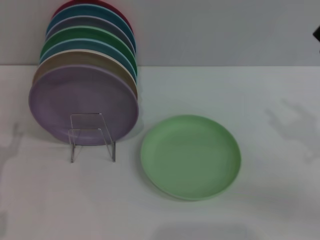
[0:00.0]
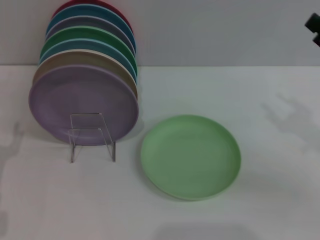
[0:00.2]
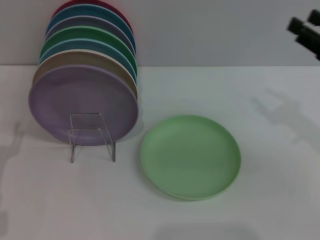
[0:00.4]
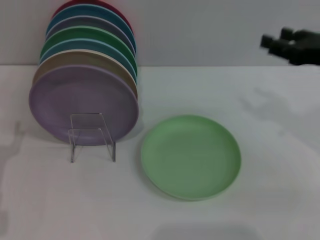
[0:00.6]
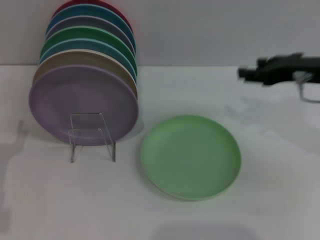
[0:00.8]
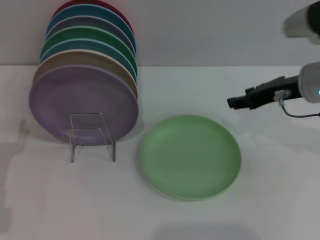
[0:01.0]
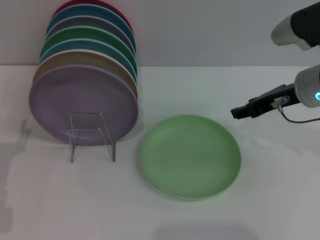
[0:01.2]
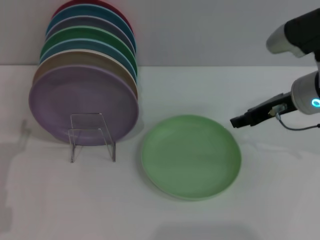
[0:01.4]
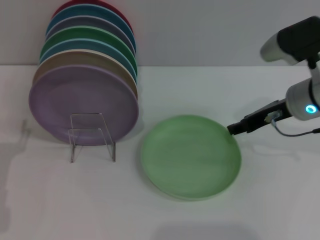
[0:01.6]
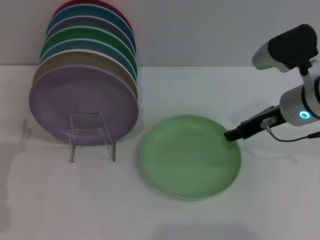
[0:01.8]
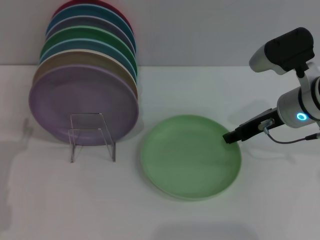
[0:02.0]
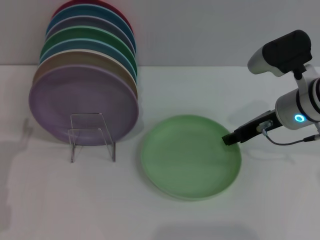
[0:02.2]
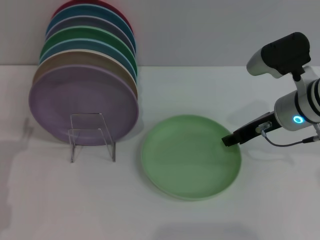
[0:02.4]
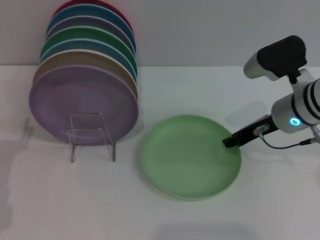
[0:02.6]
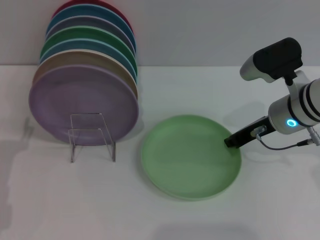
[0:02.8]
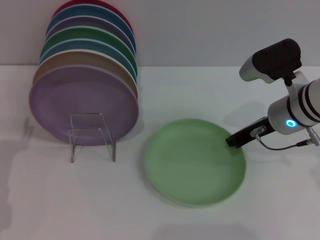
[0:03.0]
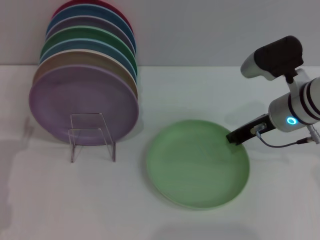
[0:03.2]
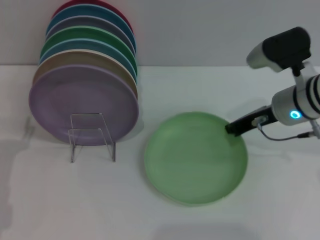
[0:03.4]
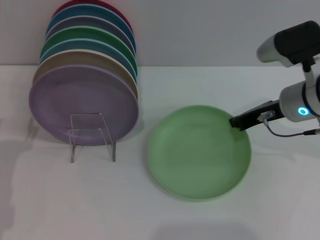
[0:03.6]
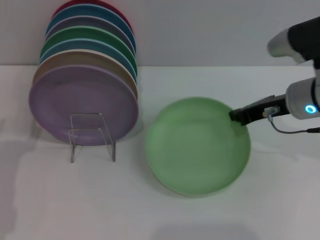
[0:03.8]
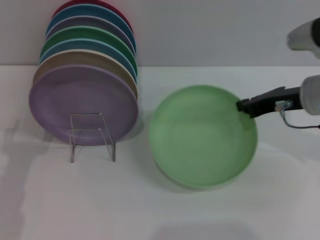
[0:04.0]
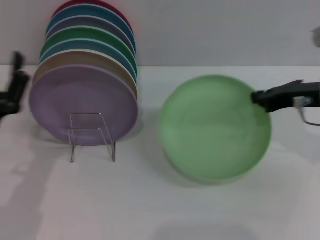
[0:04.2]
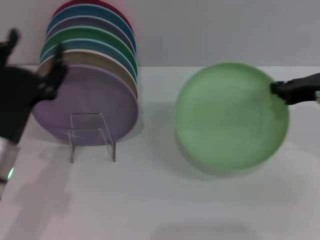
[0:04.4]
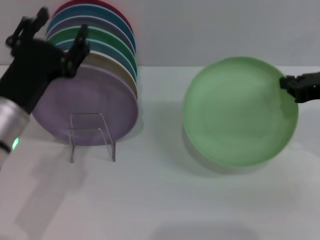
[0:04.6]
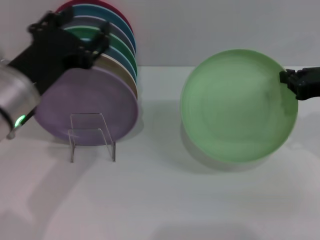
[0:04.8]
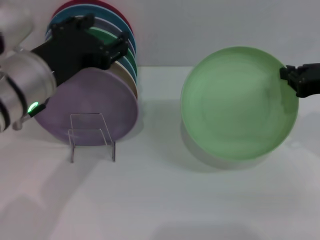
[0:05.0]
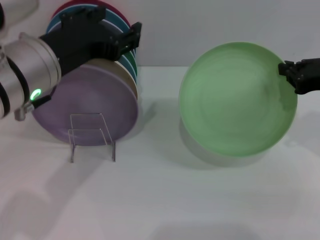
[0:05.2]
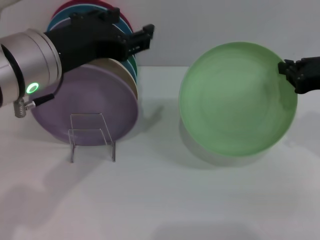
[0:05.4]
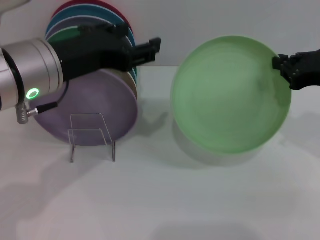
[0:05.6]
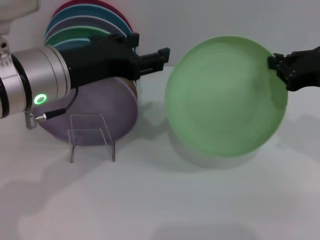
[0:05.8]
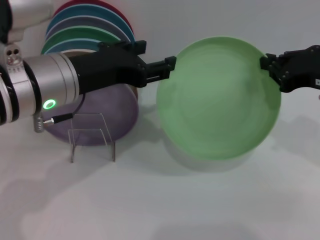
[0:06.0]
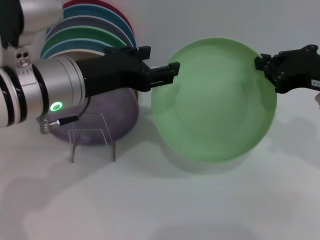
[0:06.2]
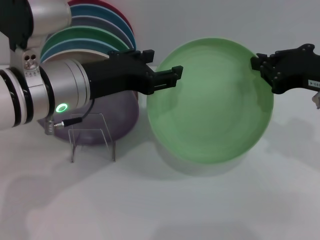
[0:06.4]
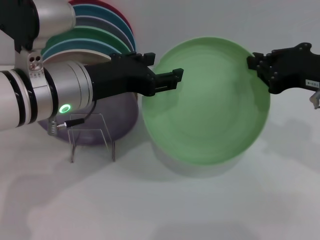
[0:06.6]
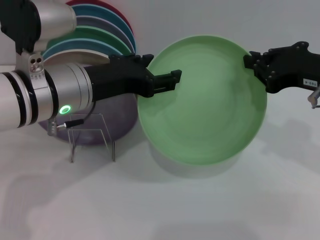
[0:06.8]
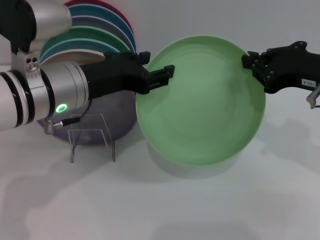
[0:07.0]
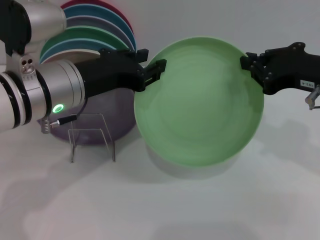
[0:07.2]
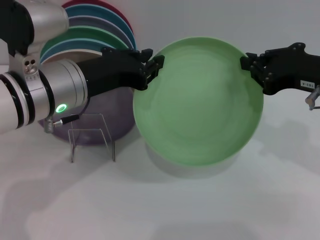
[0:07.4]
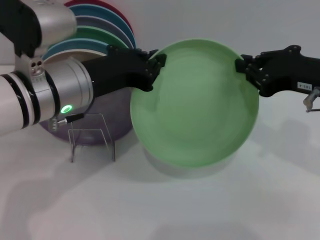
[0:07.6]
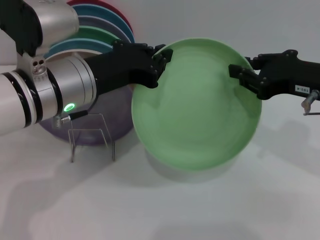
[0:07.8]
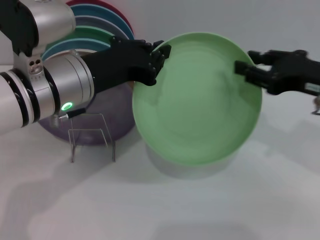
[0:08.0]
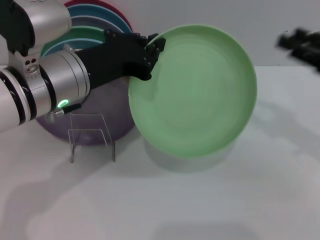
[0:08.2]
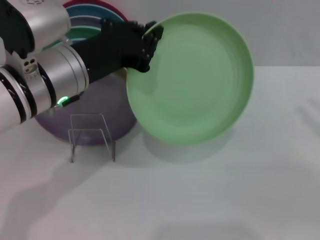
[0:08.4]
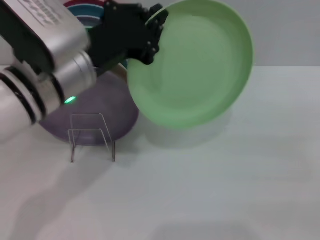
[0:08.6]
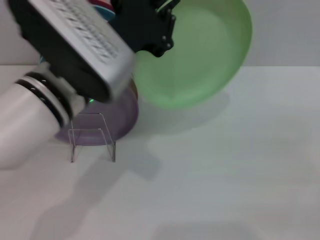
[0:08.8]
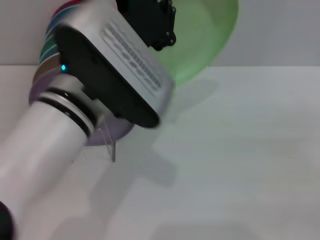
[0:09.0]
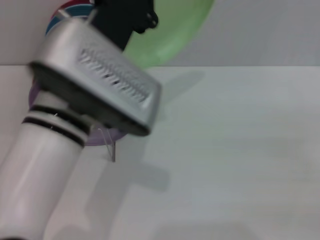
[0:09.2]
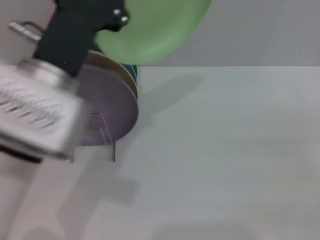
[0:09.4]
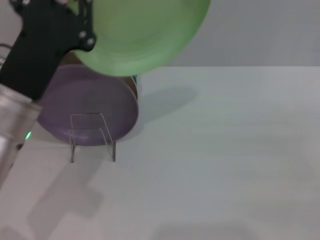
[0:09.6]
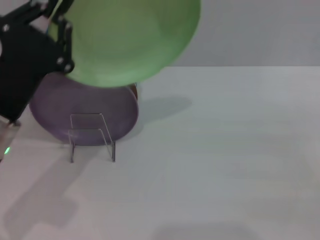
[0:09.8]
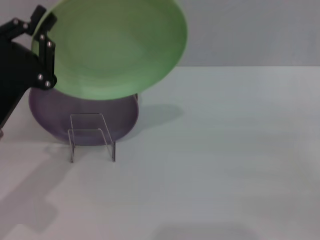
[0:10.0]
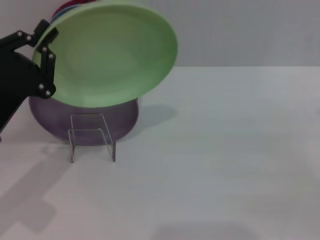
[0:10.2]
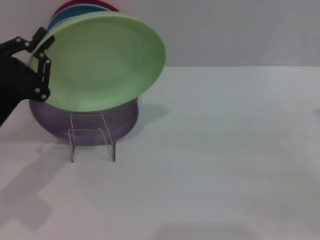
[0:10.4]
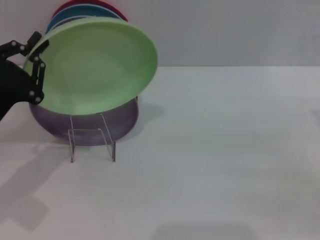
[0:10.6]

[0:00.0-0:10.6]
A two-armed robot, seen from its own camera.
Task of the whole recording: Grip the plate with one hand, pass it to the other, then set it on the shelf.
Step, 0:04.4 to 0:08.4: Pass the plate from the right gripper to the left gripper.
0:00.0 to 0:01.6: The right gripper goes roughly 15 cm forward and to the left.
0:01.6 to 0:03.0: The right gripper closes up.
0:03.0 to 0:04.6: The left gripper travels to the right and upward by about 15 cm. The right gripper shifts some 10 cm to the right, upward and backward.
0:04.6 to 0:06.0: The left gripper shifts some 5 cm upward.
0:06.0 to 0:07.6: The left gripper closes.
0:07.6 to 0:09.0: The left gripper moves to the right, some 5 cm, while the right gripper goes about 20 cm to the right, backward and downward, and opens its fingers.
0:09.0 to 0:10.6: The left gripper goes approximately 20 cm to the left and downward.

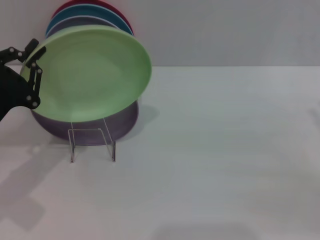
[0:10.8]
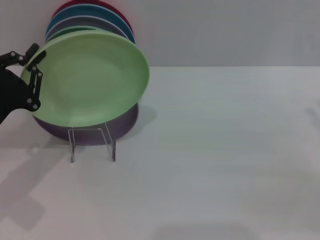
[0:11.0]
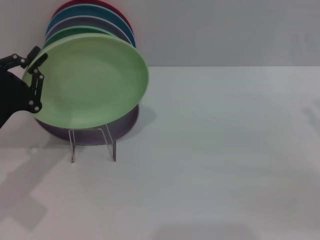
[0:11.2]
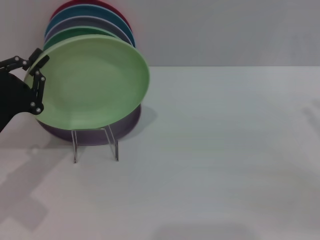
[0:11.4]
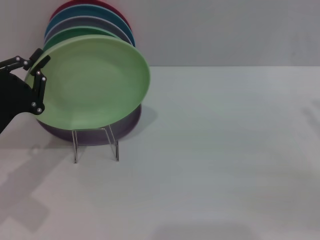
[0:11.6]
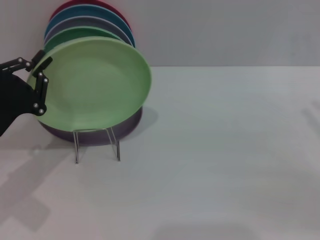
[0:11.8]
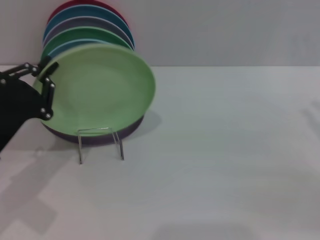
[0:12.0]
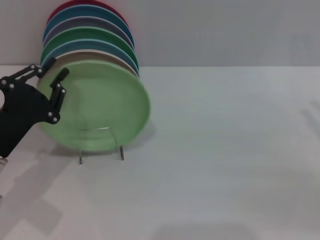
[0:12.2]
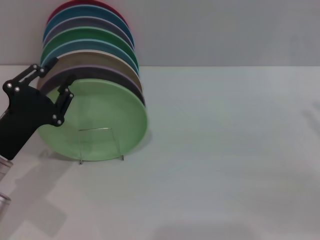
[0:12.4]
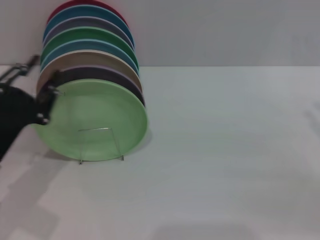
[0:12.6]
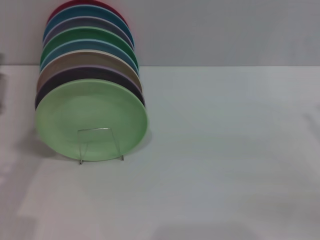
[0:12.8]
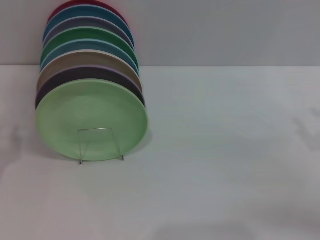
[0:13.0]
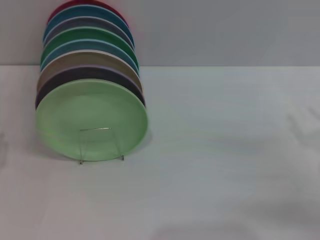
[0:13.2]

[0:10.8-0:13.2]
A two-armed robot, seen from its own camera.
Task of the whole recording: Grip the plate with one hand, pass it to the other, then set it on the shelf.
0:10.8 to 0:12.0: The grippers move only a little.
0:12.0 to 0:13.2: The left gripper shifts roughly 10 cm backward and to the left. Meanwhile the right gripper shifts some 5 cm downward.

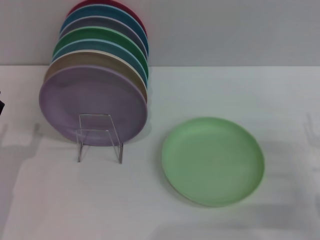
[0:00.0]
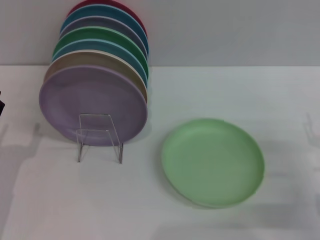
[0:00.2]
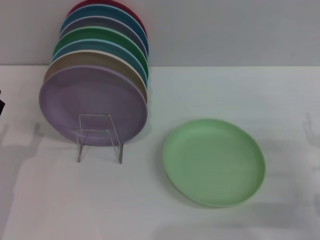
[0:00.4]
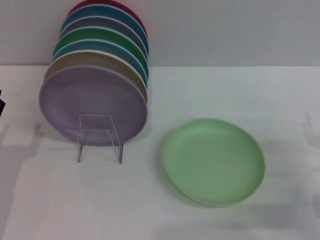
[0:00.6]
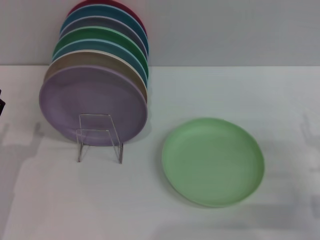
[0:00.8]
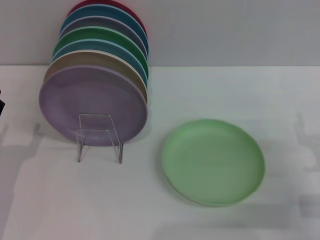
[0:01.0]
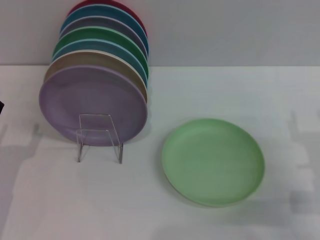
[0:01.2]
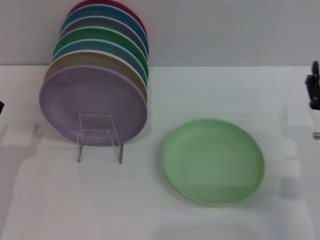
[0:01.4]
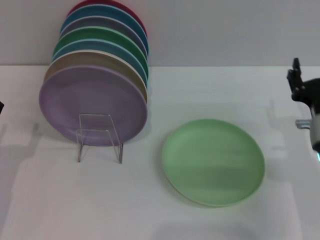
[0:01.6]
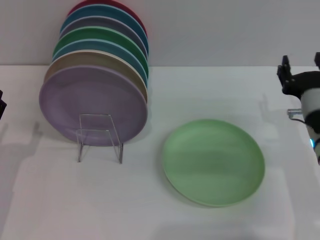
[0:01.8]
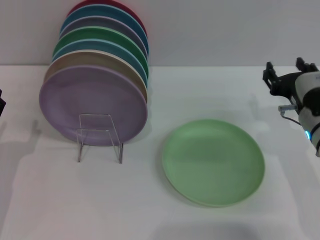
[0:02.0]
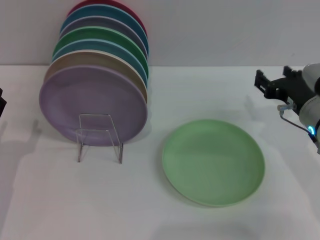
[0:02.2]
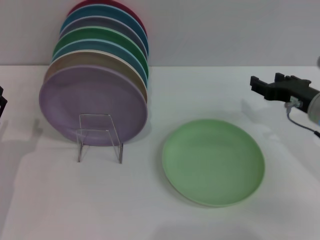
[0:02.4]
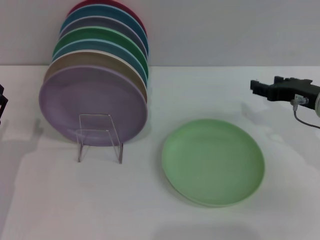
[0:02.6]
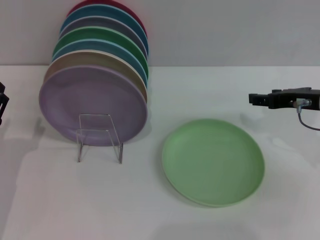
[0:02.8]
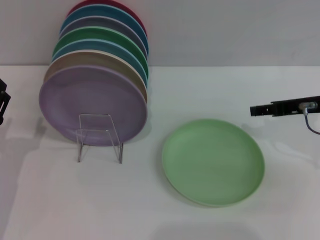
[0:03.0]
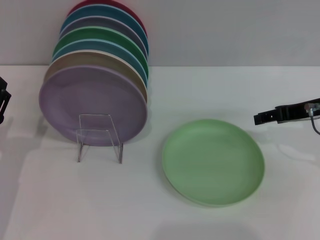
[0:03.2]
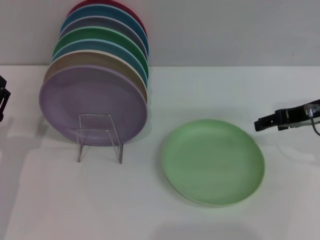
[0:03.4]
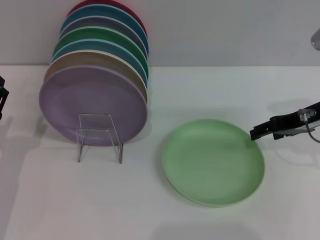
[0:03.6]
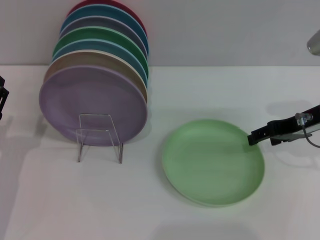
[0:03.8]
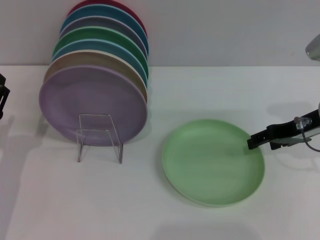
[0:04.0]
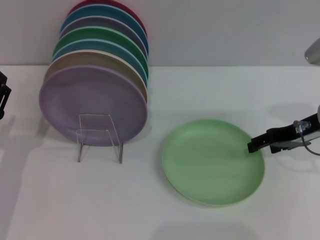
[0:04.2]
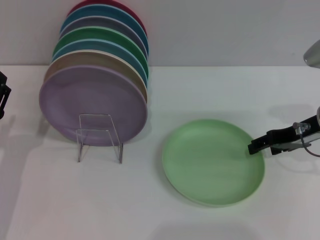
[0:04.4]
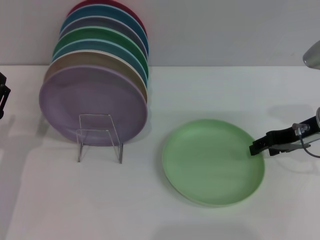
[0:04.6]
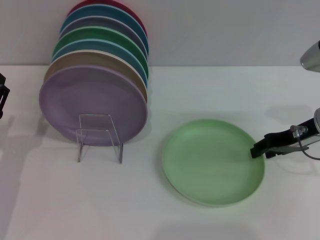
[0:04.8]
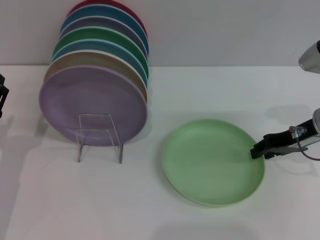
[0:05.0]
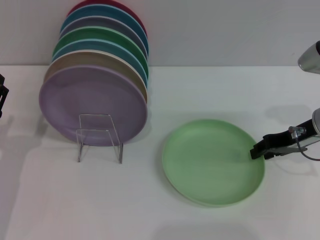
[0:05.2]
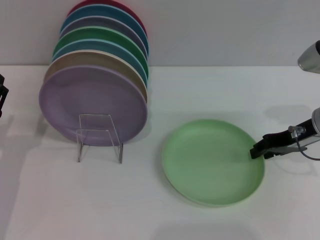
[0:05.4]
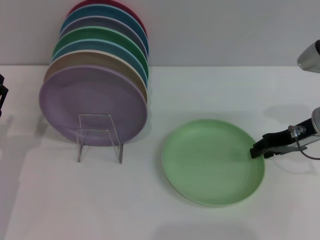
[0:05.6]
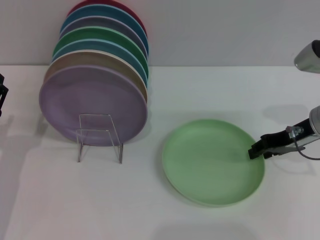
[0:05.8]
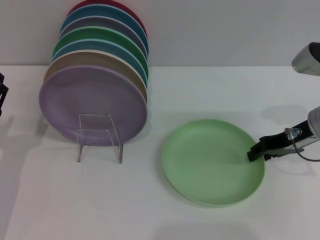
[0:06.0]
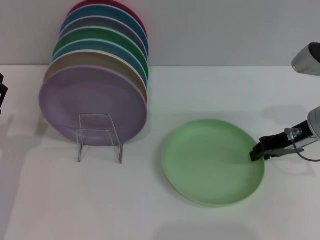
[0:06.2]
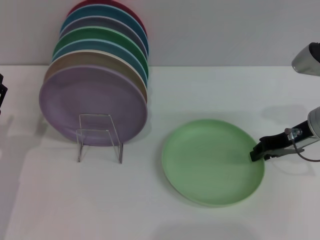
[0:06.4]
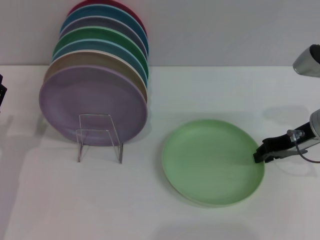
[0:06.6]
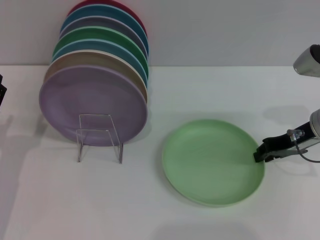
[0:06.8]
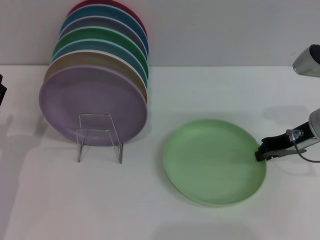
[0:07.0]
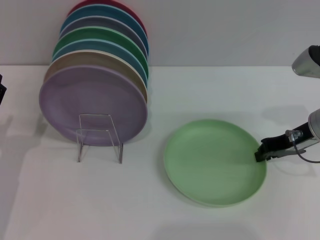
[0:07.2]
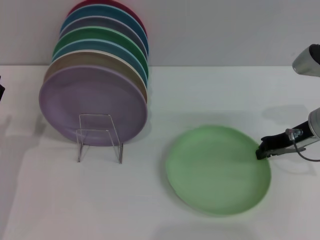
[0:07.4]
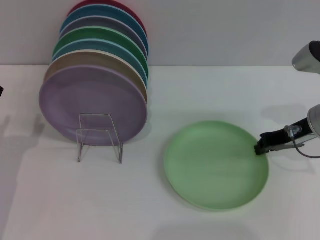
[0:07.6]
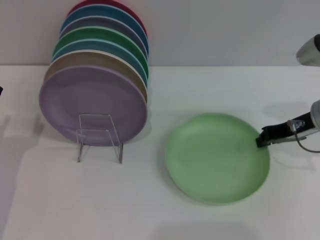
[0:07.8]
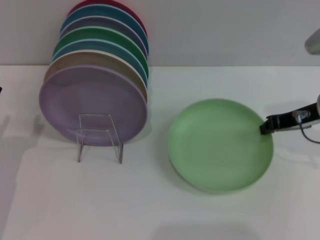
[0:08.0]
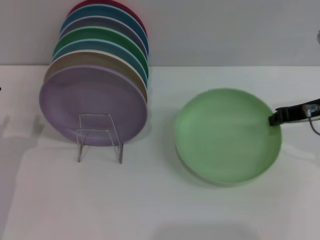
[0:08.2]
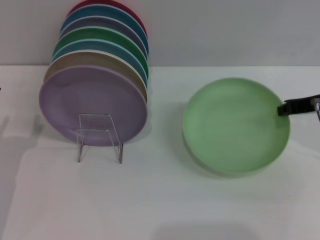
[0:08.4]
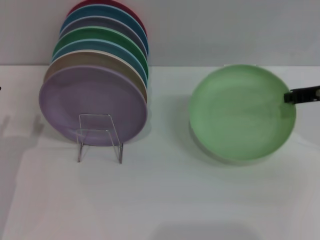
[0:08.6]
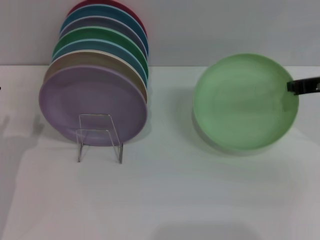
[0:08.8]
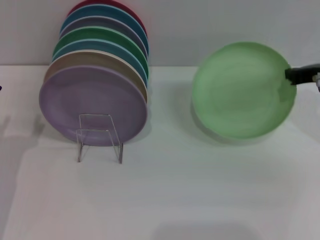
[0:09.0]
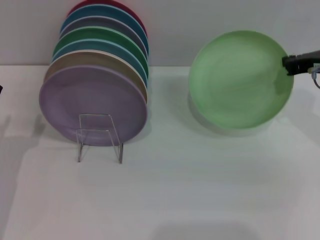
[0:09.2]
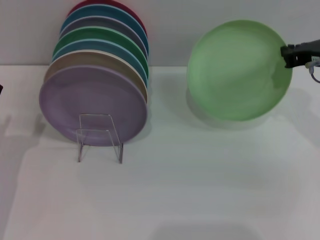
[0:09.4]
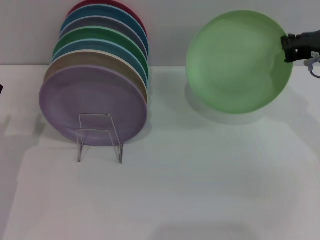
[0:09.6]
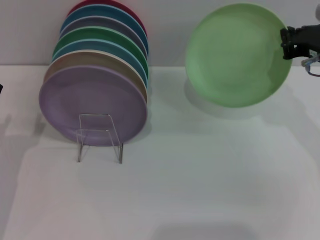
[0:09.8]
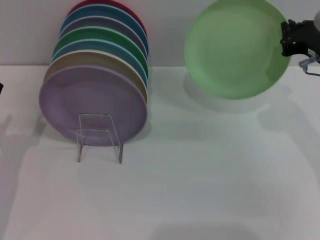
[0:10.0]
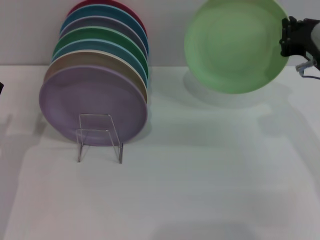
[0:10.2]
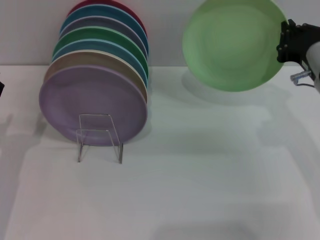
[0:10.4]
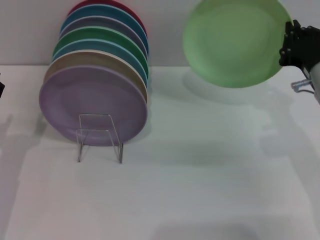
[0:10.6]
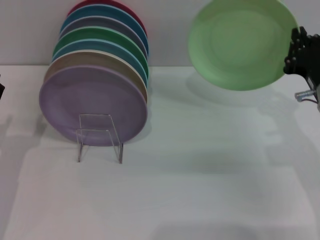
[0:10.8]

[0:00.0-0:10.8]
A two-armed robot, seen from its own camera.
Task of the whole recording: Grip the plate with one hand, pass it to the other, then set it on the shelf.
Step, 0:00.0 to 0:10.0: Pick up the plate with the right gripper.
0:00.0 to 0:01.6: The right gripper travels to the left and forward by some 10 cm.
0:01.6 to 0:03.0: The right gripper travels upward and forward by some 10 cm.
0:04.6 to 0:06.2: The right gripper closes.
0:06.2 to 0:07.8: The right gripper closes its fingers.
0:07.8 to 0:09.2: The right gripper ends up some 5 cm from where it was.
0:09.2 to 0:10.8: The right gripper travels downward and backward by some 10 cm.
